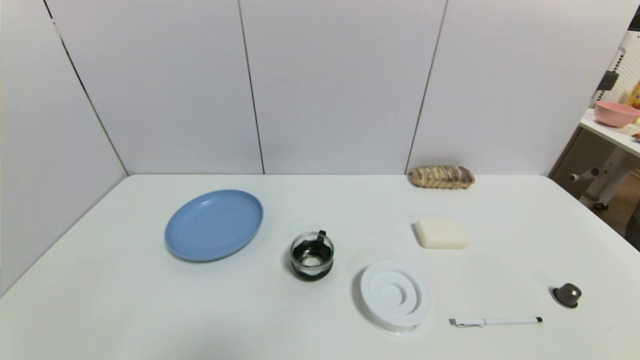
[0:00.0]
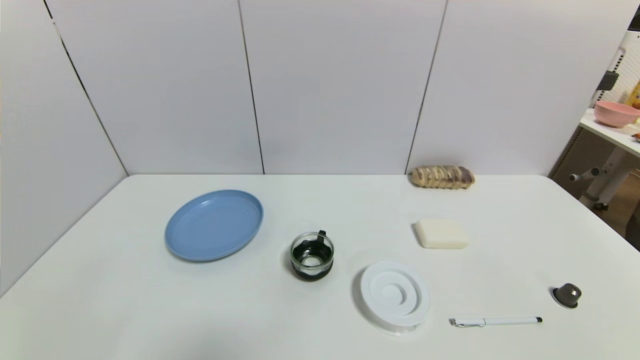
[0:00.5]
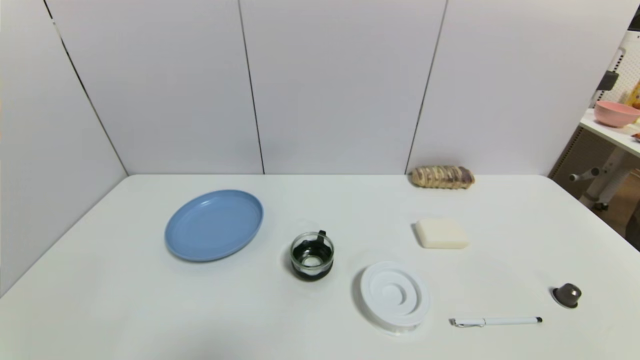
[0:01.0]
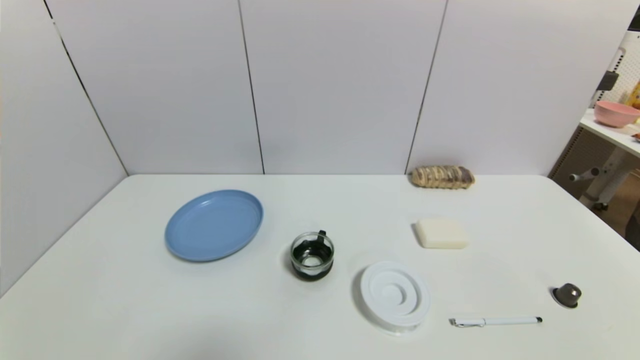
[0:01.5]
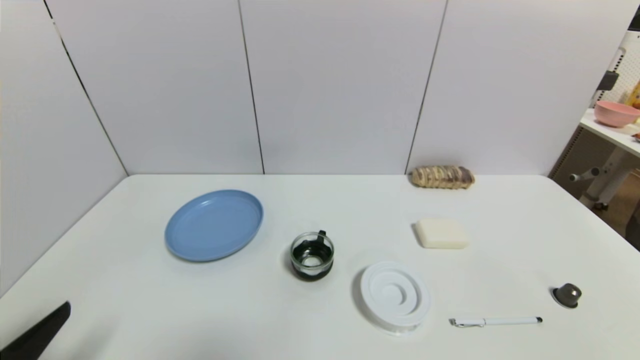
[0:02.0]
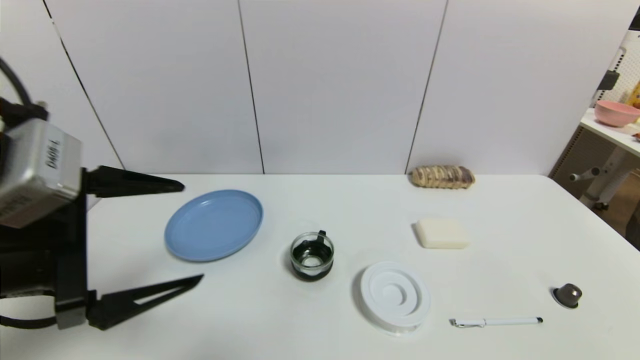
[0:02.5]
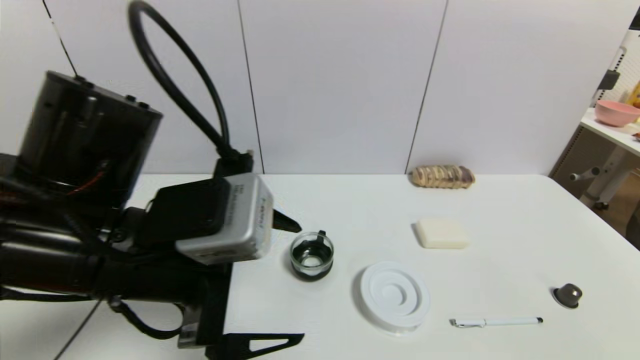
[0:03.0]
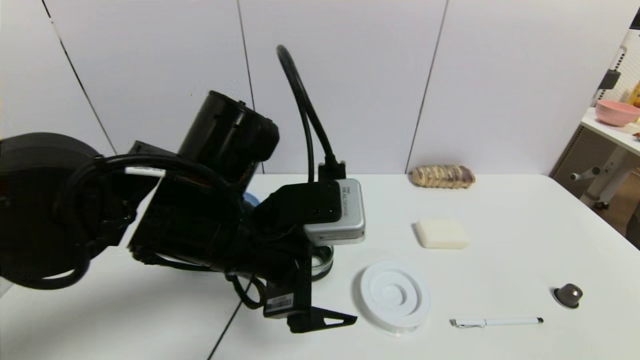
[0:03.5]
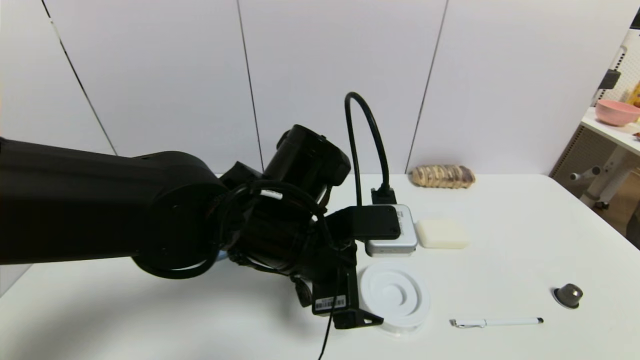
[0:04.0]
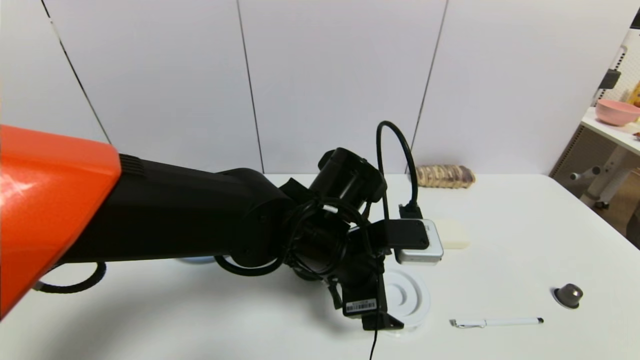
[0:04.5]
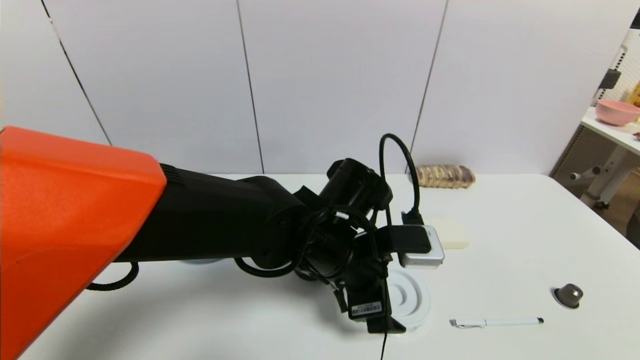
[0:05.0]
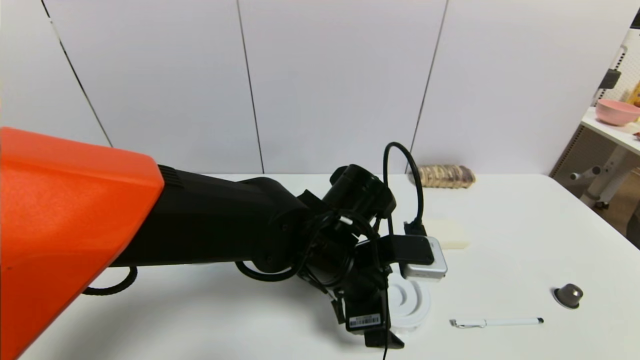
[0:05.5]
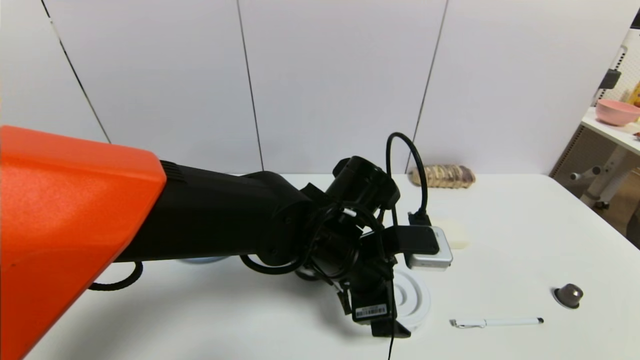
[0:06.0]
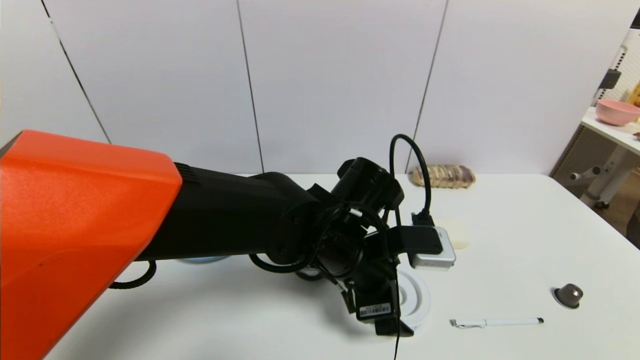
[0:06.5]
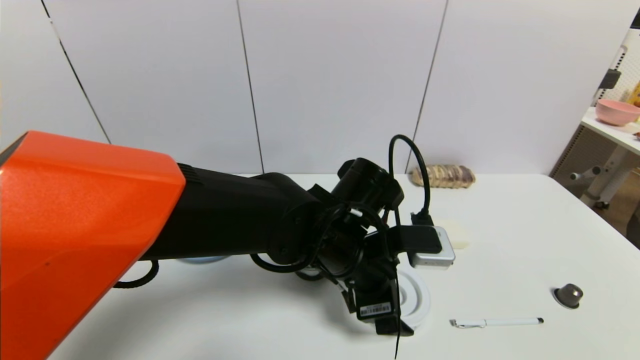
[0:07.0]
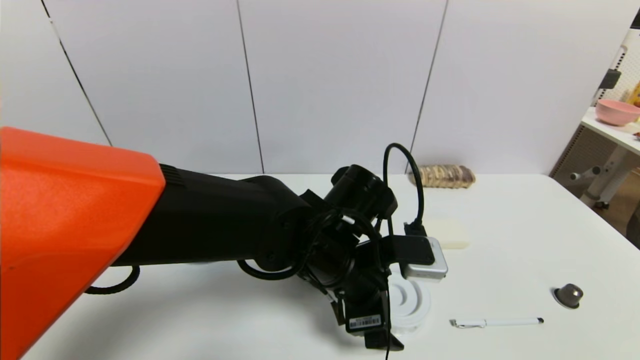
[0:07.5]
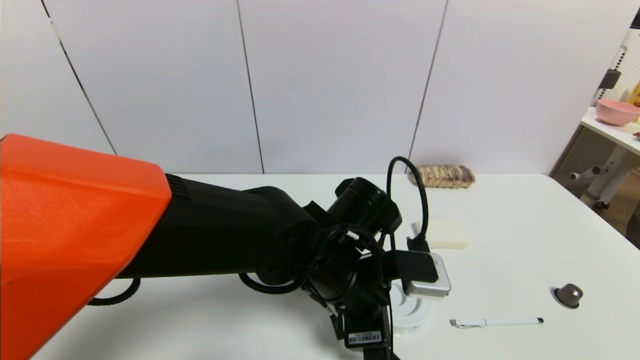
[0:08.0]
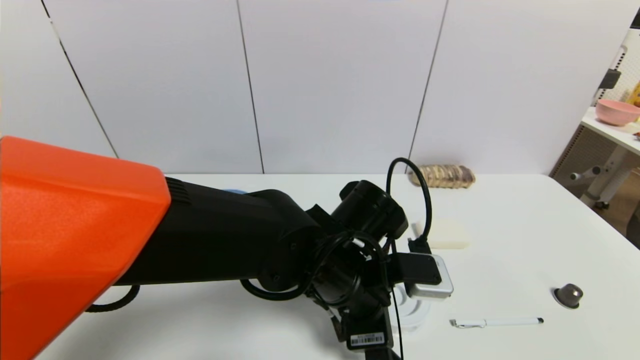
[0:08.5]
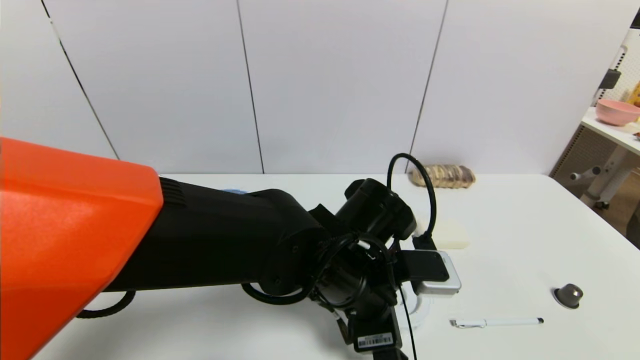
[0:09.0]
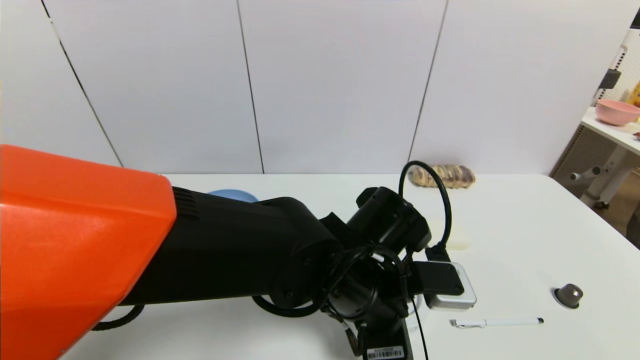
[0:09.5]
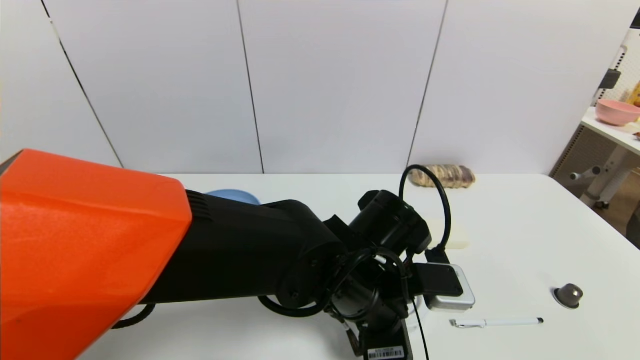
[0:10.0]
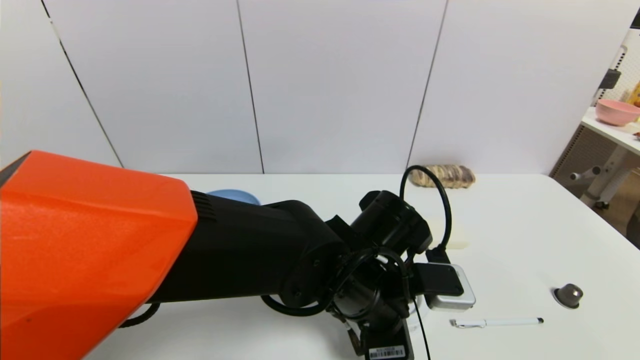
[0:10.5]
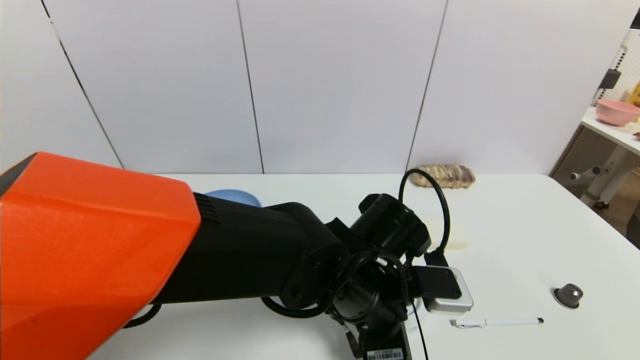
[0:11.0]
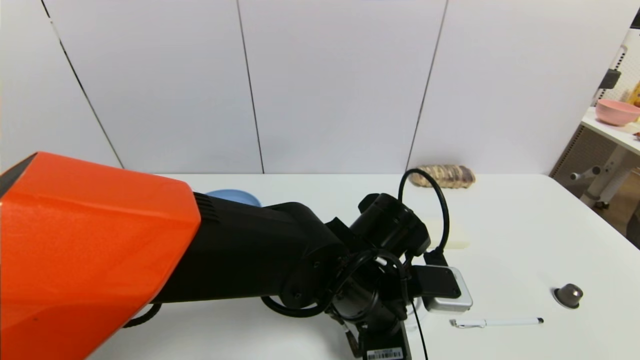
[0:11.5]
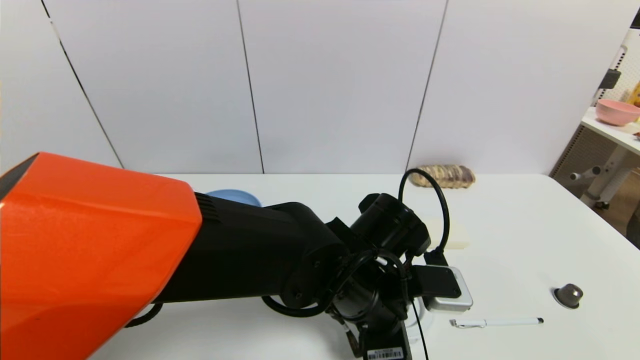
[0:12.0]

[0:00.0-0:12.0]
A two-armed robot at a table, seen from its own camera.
Task of the whole recording: use a gripper to pick the target object and place on the blue plate.
0:00.0 to 0:02.0: The left gripper shifts some 15 cm upward and forward.
0:02.0 to 0:04.0: The left gripper shifts some 30 cm to the right and forward.
0:04.0 to 0:06.0: The left gripper is displaced to the right by roughly 5 cm.
0:06.0 to 0:10.0: The grippers make only small movements.
0:10.0 to 0:12.0: The left gripper closes.

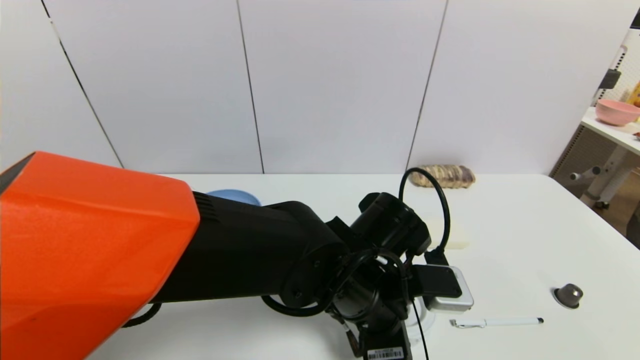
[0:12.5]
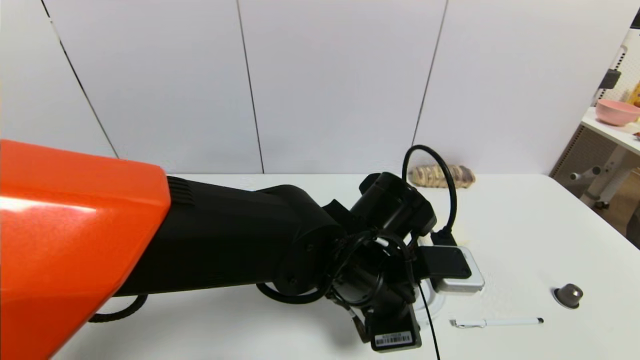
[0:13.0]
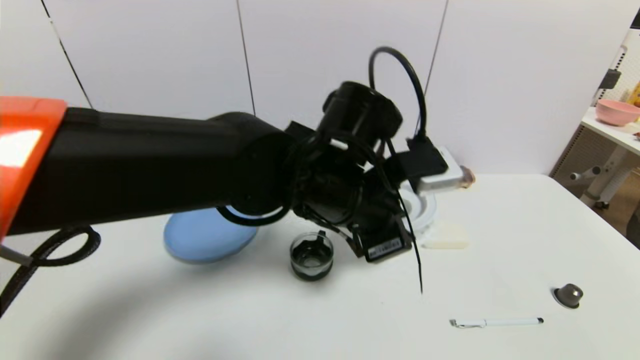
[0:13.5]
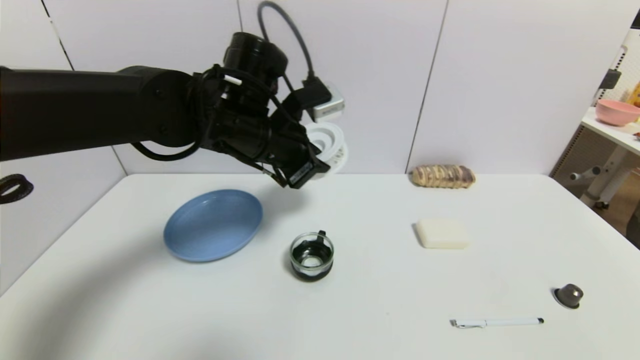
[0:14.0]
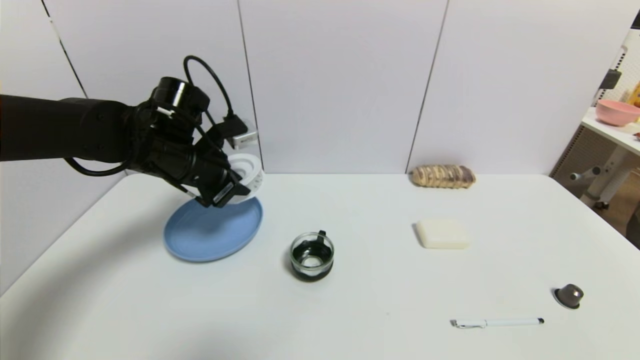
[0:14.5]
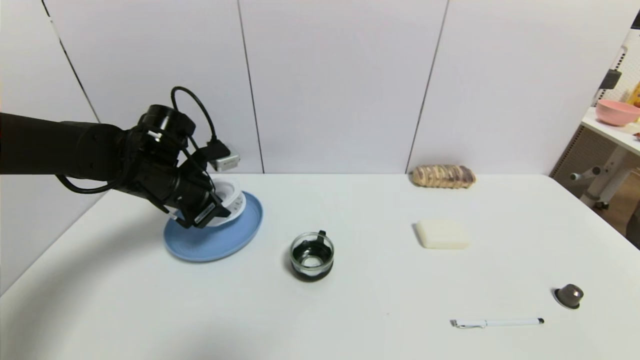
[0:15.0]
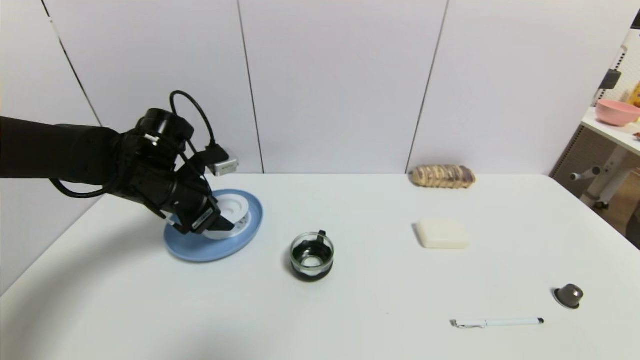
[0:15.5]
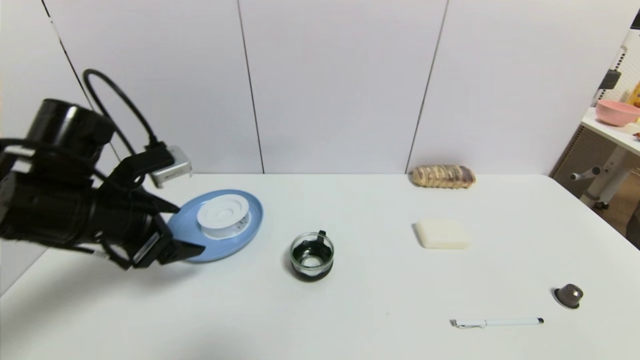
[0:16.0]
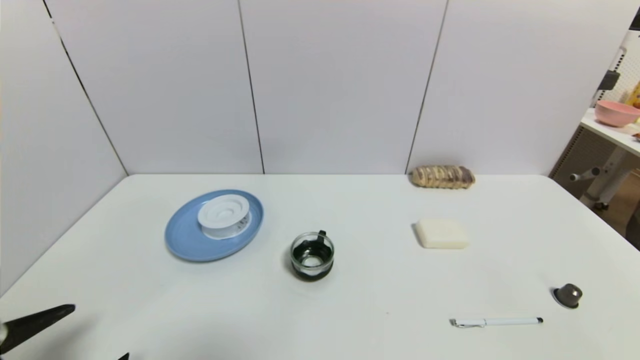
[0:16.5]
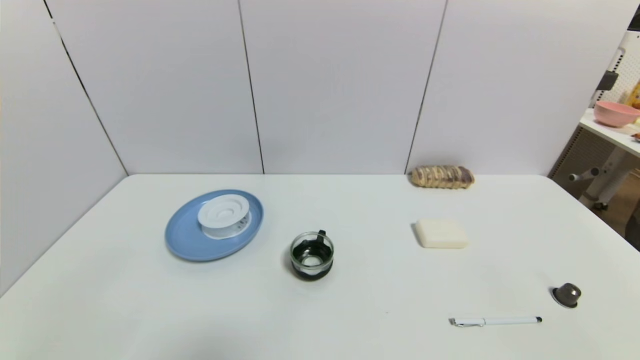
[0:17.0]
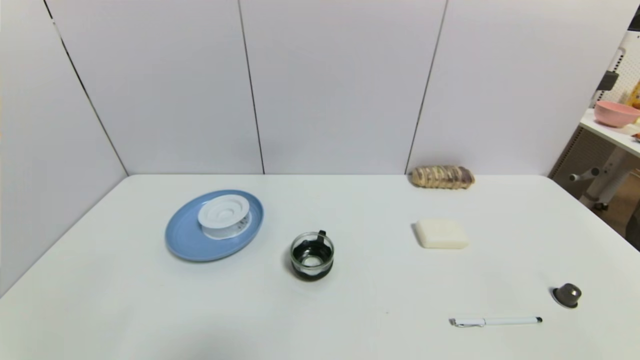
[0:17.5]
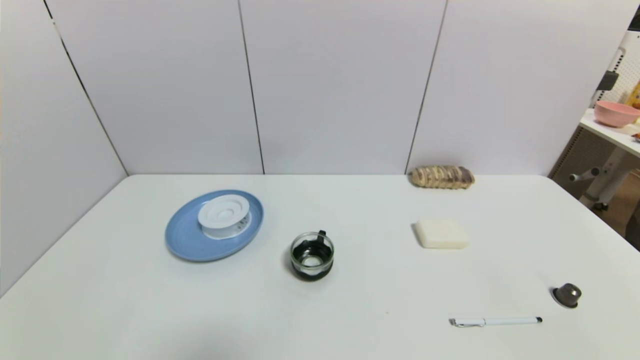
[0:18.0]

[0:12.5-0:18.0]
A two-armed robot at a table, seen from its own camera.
Task of the whole recording: use a gripper to pick the target object and place on the blue plate.
Step, 0:12.5 to 0:15.0: Place the tape on the blue plate with the left gripper.
0:12.5 to 0:14.5: The left gripper moves to the left and forward, some 25 cm.
0:14.5 to 0:16.0: The left gripper heads backward and to the left, covering roughly 15 cm, and opens up.
0:16.0 to 0:18.0: The left gripper goes some 30 cm backward and downward.
